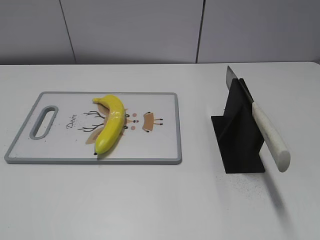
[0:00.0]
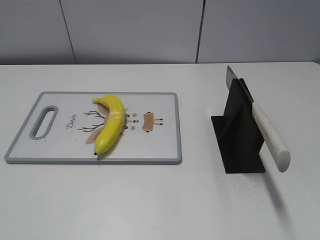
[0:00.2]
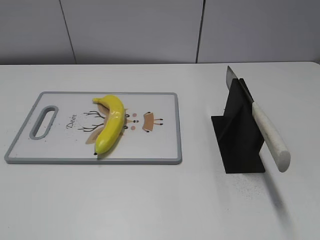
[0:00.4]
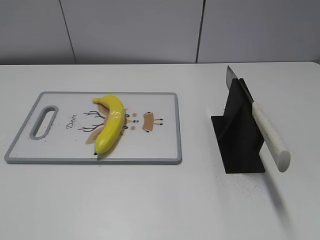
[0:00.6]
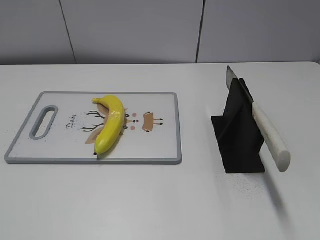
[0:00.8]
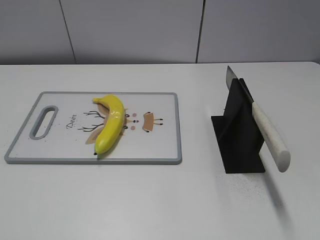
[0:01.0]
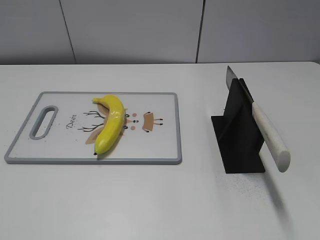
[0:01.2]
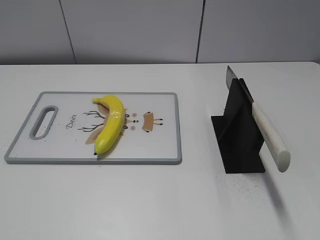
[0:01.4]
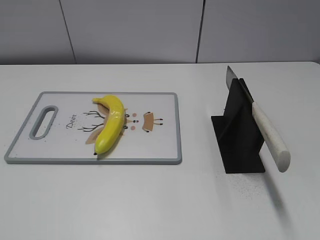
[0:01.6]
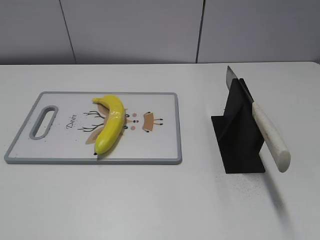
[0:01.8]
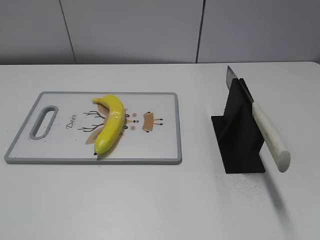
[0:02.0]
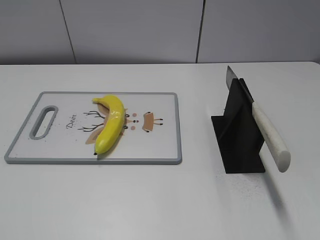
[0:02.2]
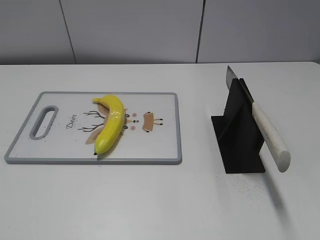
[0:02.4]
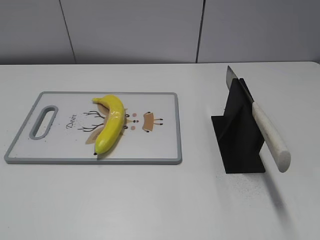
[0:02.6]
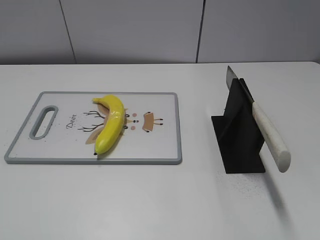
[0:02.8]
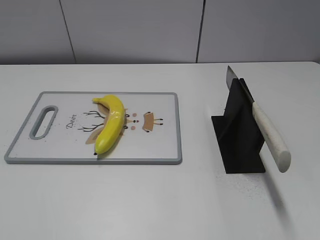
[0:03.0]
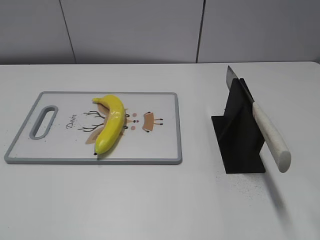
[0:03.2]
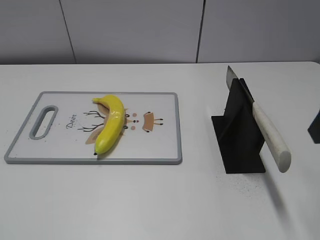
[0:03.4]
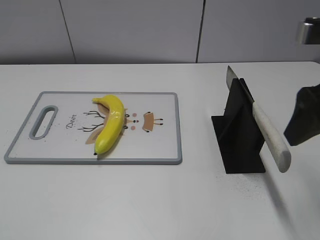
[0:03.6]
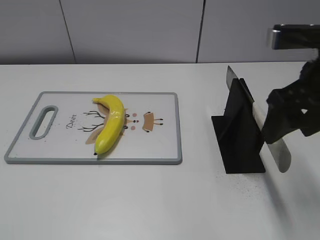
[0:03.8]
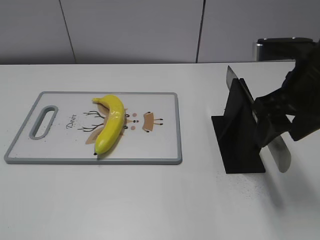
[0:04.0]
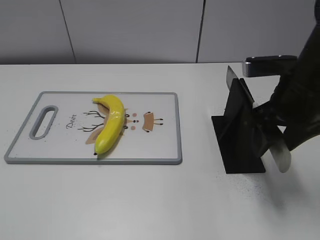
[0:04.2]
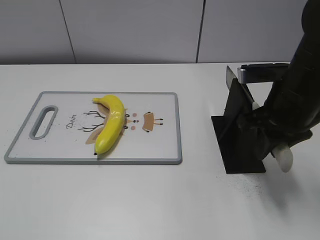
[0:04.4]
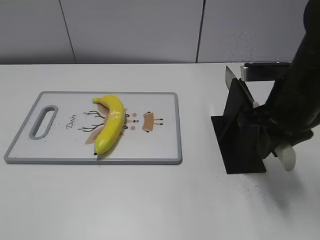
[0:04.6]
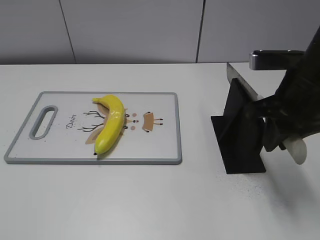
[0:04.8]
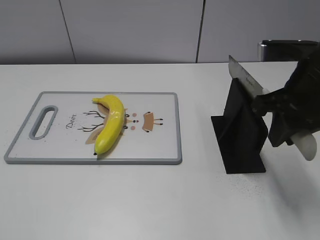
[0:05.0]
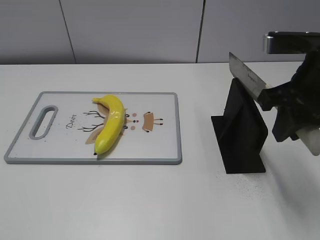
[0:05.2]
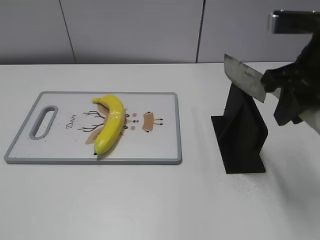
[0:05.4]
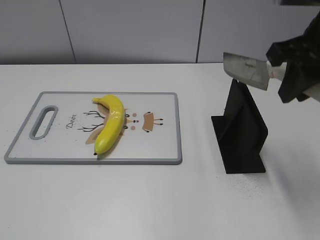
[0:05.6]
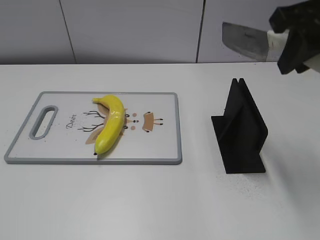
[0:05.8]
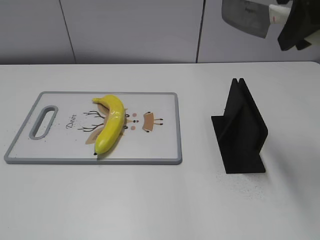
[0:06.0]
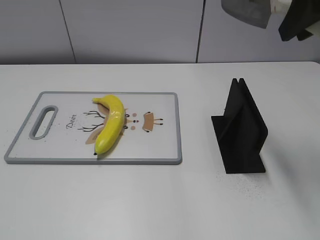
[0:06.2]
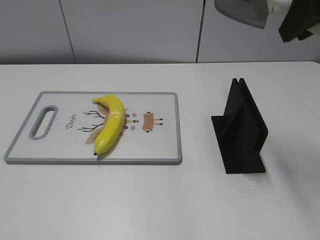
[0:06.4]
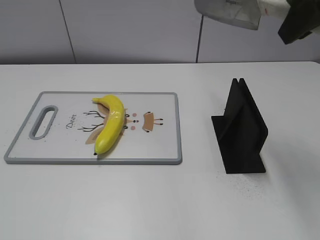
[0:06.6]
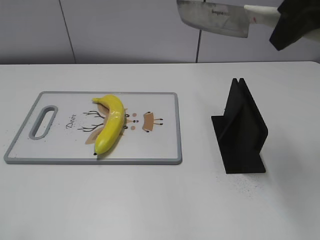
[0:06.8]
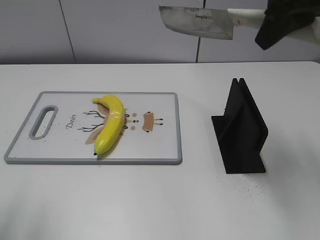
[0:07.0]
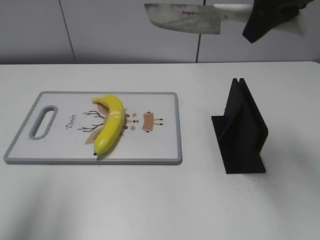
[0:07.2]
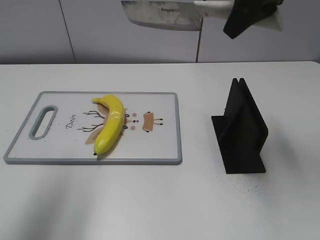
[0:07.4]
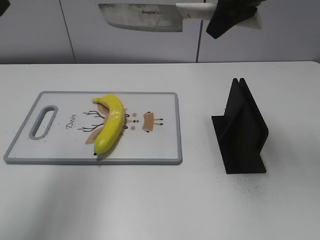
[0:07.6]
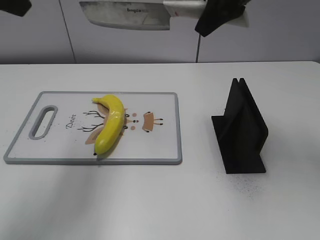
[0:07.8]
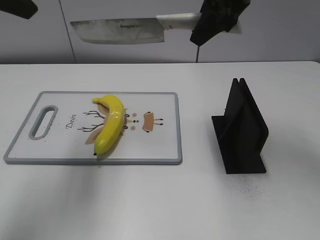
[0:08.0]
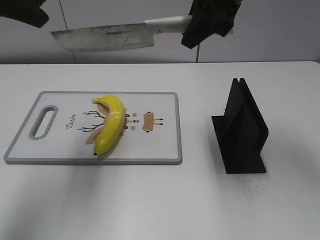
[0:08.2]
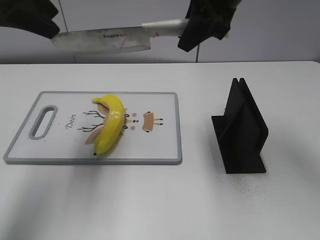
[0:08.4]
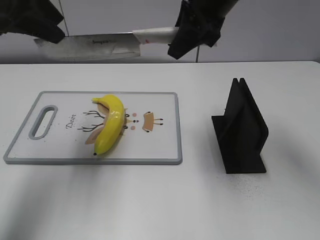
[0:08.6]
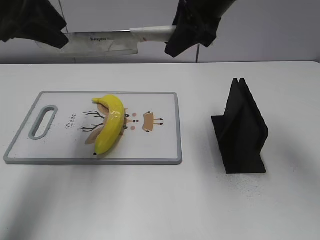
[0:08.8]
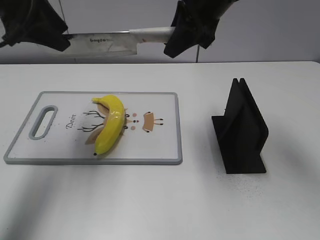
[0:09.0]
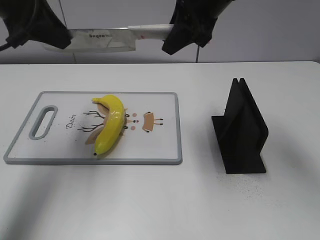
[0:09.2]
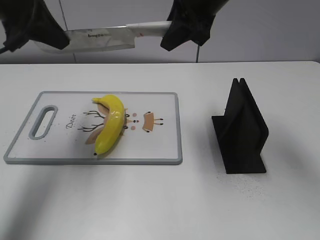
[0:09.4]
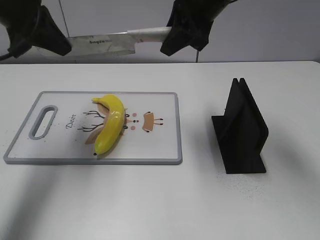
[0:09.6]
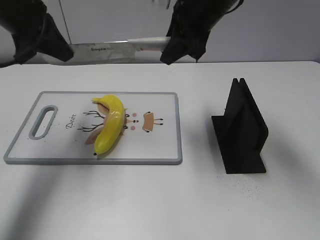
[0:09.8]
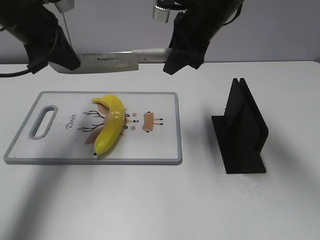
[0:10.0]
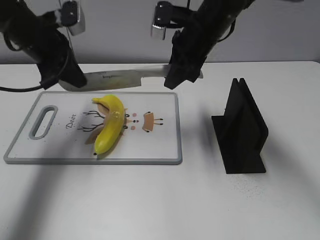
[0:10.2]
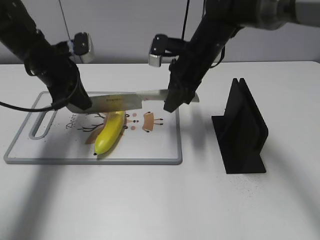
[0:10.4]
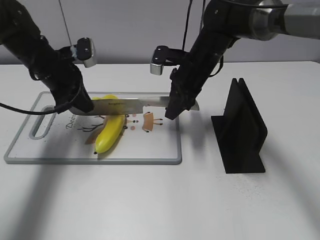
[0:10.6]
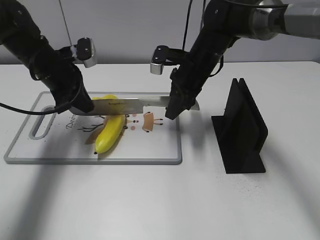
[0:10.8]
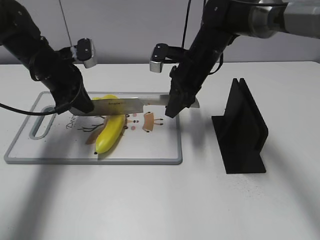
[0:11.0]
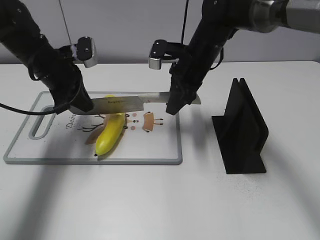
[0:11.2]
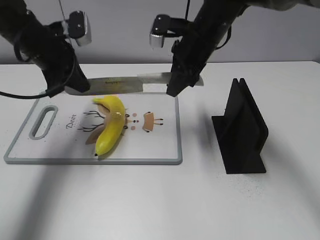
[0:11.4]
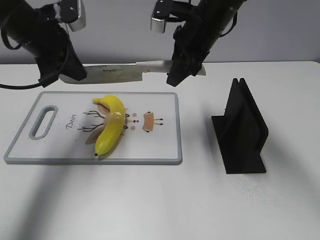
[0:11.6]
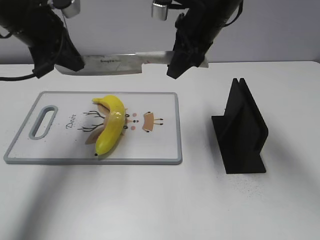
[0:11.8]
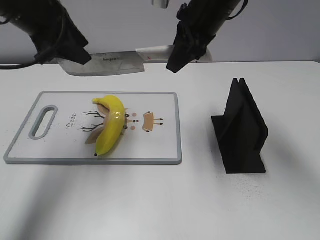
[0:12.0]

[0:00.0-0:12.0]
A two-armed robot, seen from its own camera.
Task of the whole recording: cut plastic banana.
Step, 0:00.0 to 0:05.6: Grab the knife handle with your right hand.
Step, 0:05.8 to 0:11.8: Lift the knife with your right hand.
0:03.0 to 0:04.4: The right gripper goes roughly 20 cm forward, downward and to the left, and closes.
0:04.4 to 0:06.0: The right gripper shifts roughly 15 cm upward.
0:06.0 to 0:07.6: The right gripper shifts about 10 cm forward and to the left. The left gripper moves forward and upward, some 30 cm.
0:07.6 to 0:09.0: The left gripper heads forward and downward, covering approximately 15 cm, while the right gripper is displaced to the left by about 5 cm.
0:09.0 to 0:10.4: Both grippers move downward, some 15 cm. The left gripper closes its fingers.
0:10.4 to 0:12.0: The two grippers go some 10 cm upward. The left gripper opens up.

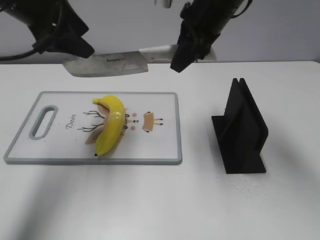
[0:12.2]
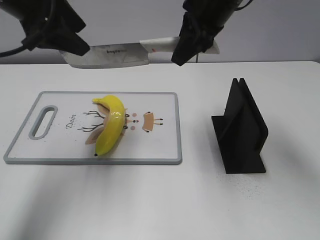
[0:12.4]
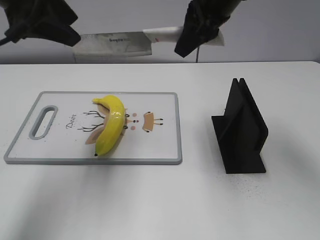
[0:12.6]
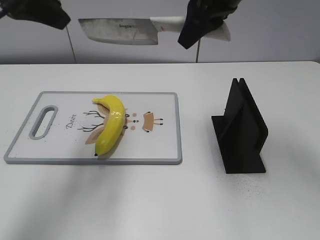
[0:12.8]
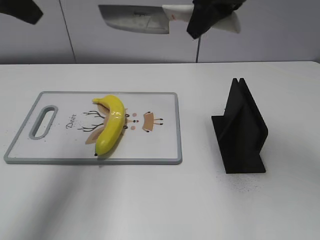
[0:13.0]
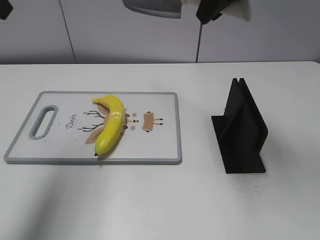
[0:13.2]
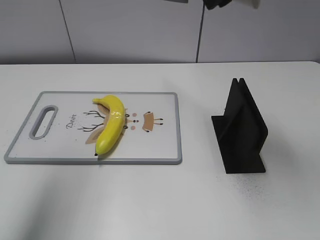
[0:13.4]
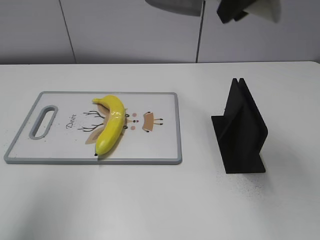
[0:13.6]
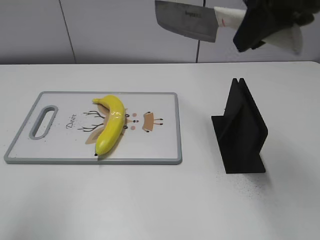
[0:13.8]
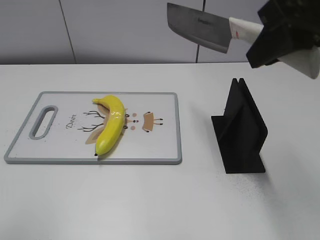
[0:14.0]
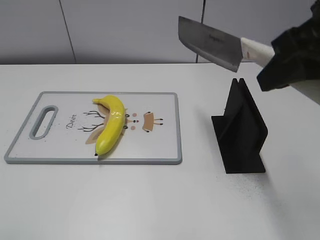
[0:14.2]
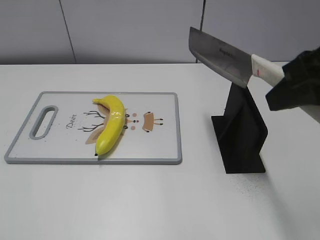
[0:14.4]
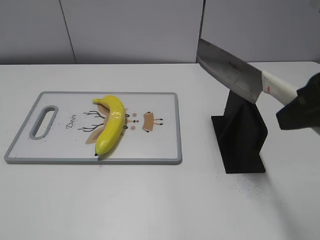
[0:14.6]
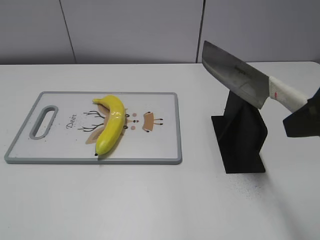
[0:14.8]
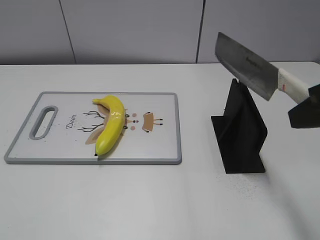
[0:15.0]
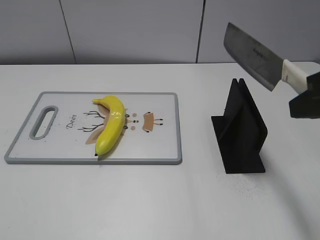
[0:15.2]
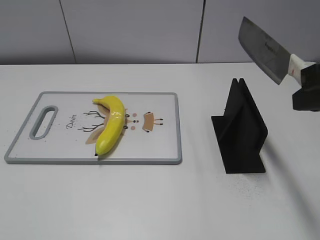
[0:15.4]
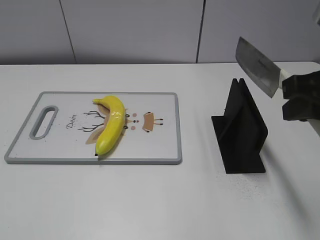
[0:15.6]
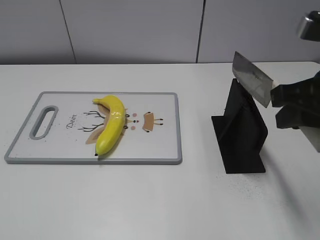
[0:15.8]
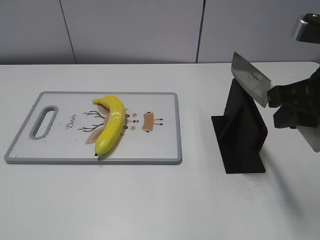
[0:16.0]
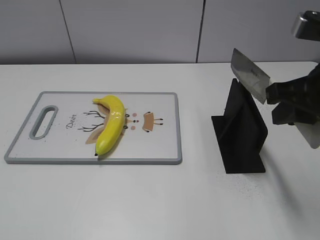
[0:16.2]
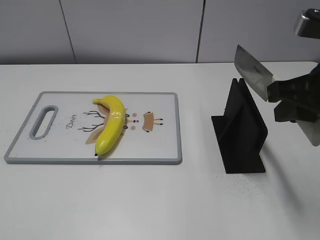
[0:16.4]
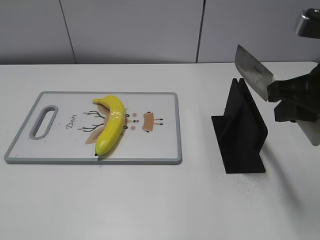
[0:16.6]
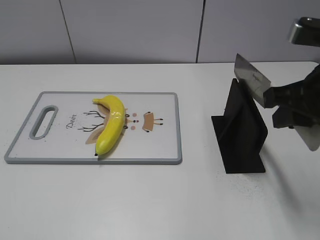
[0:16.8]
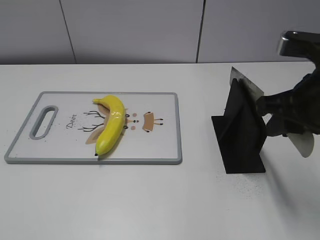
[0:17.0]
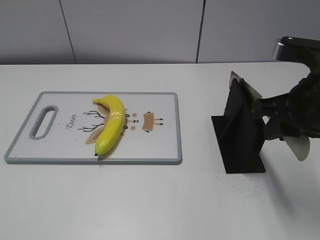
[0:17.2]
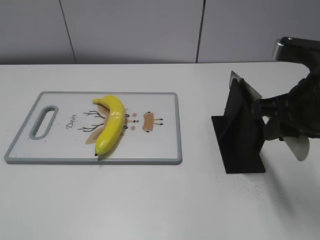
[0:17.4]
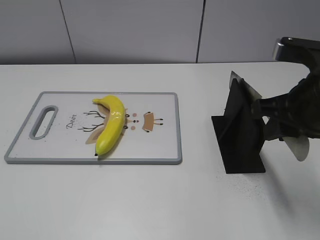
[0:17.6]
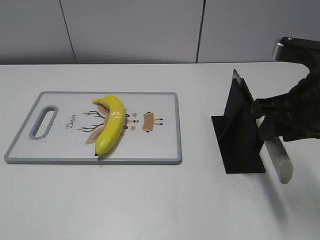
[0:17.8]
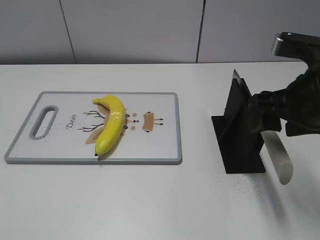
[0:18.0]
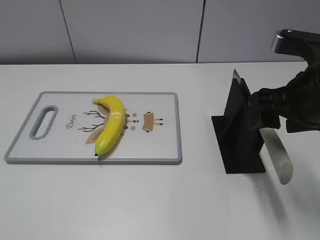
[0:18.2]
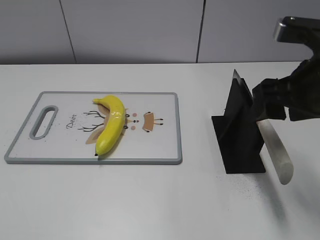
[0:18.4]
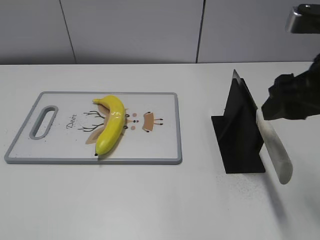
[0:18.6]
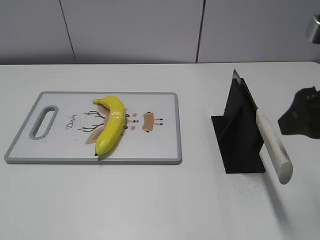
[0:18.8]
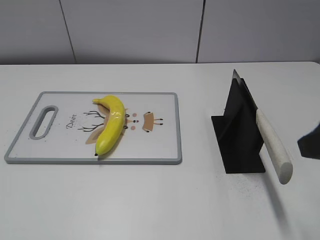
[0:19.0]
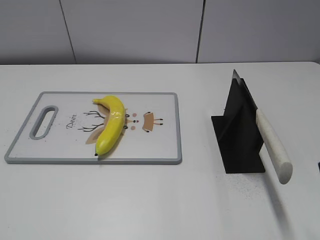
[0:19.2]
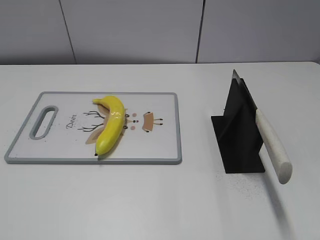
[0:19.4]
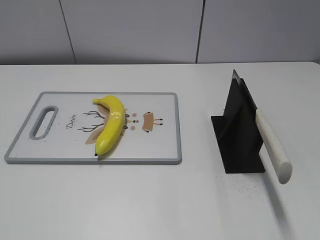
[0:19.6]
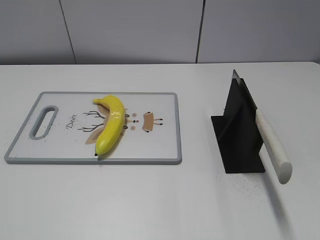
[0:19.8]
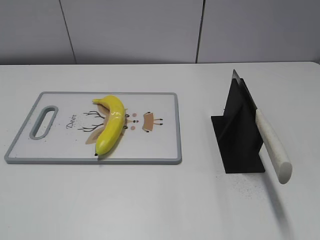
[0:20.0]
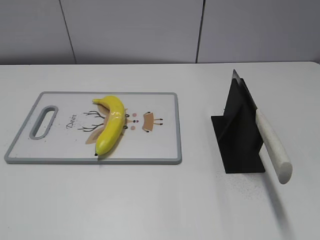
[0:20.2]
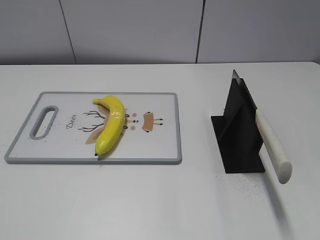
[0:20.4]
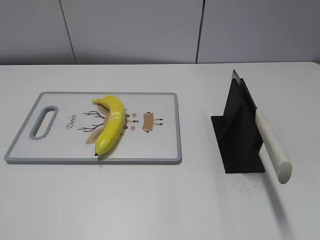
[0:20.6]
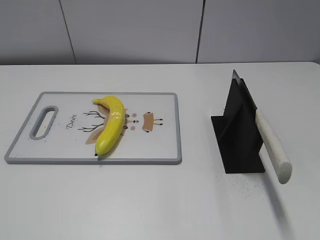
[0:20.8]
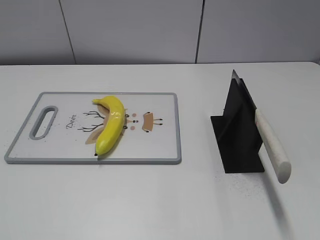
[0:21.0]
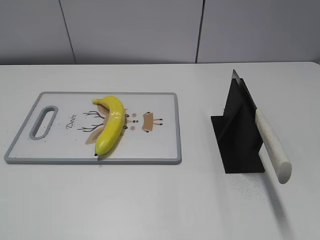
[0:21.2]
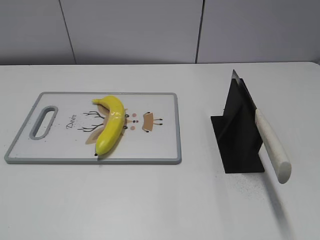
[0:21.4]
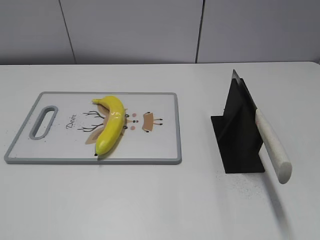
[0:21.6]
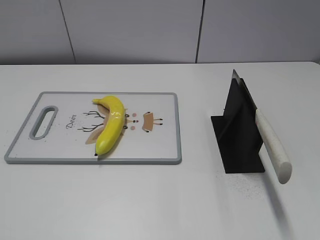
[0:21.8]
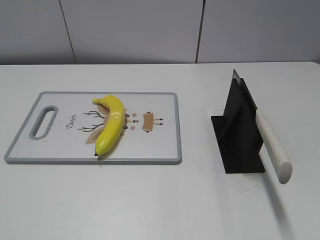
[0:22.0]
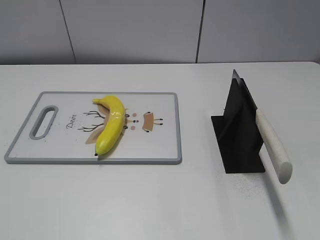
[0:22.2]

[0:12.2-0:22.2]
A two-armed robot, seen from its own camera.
Task of the whole recording: cut plastic banana.
Step, 0:12.2 to 0:13.6: Cut the banana with your right hand.
Step, 0:13.8 to 0:14.4: Lift the knife with your right hand.
Step, 0:14.6 to 0:22.2: Place the knife on the storage rack with your right hand.
0:12.2 to 0:13.6: The left gripper is displaced backward and upward by approximately 20 cm. Meanwhile the right gripper shifts some 15 cm upward, backward and to the right.
0:13.6 to 0:15.0: The left gripper travels backward and downward by approximately 25 cm, while the right gripper travels backward, downward and to the right by some 20 cm.
0:15.0 to 0:16.4: The right gripper goes roughly 5 cm forward.
0:16.4 to 0:18.0: The right gripper opens its fingers.
0:18.0 to 0:19.4: The right gripper heads backward and to the right, covering roughly 15 cm.
